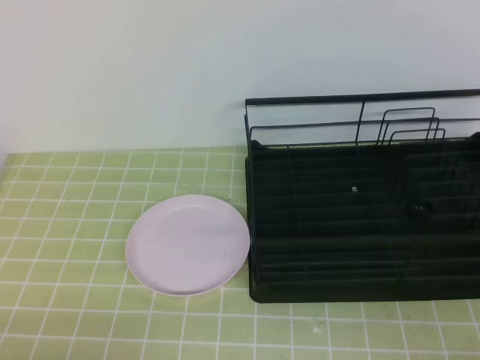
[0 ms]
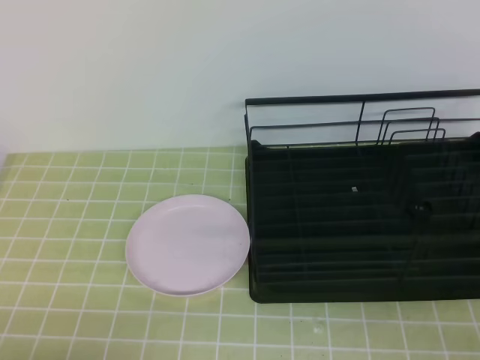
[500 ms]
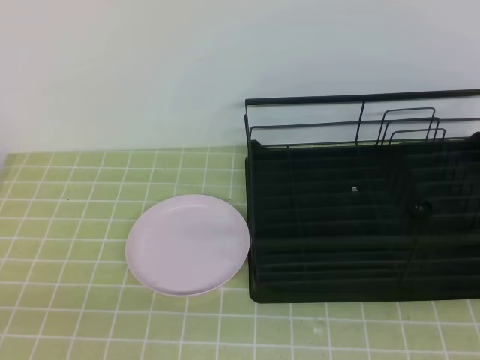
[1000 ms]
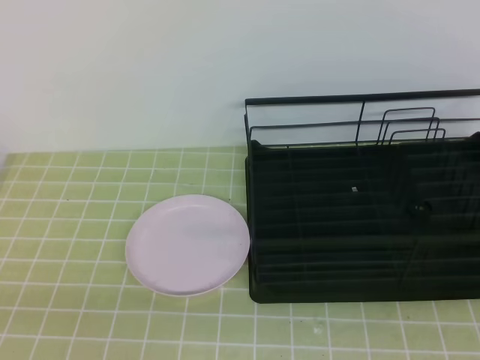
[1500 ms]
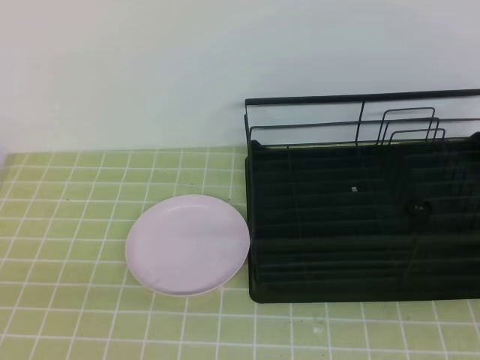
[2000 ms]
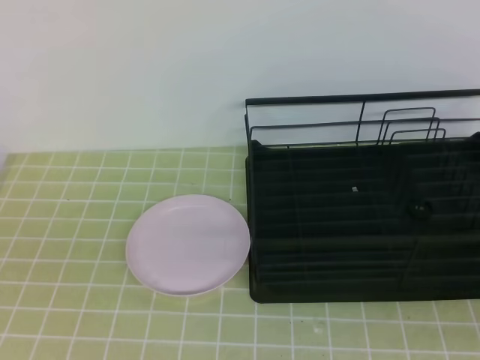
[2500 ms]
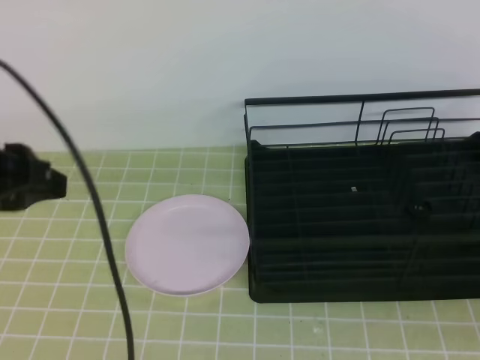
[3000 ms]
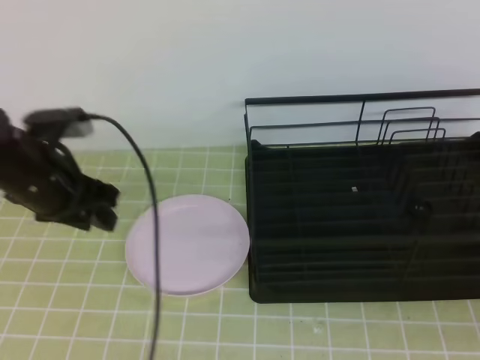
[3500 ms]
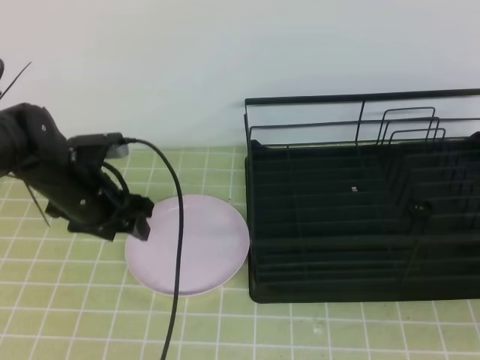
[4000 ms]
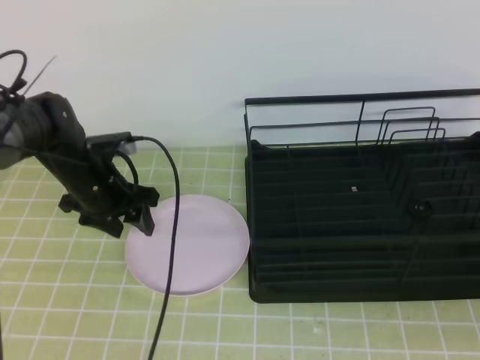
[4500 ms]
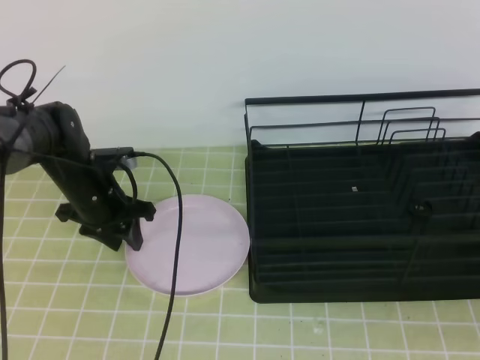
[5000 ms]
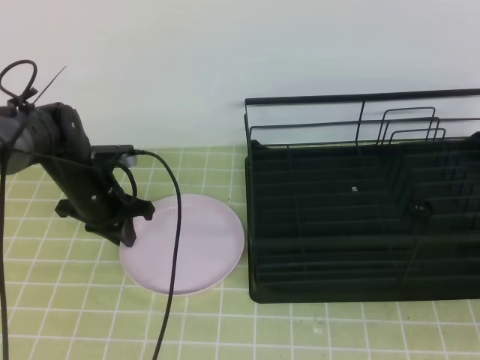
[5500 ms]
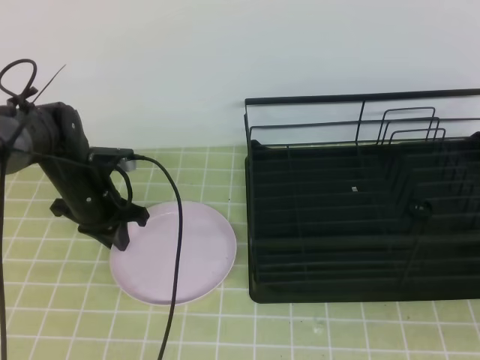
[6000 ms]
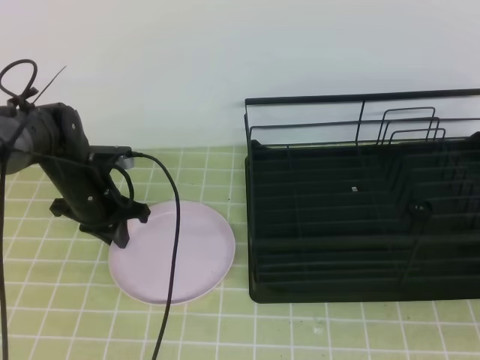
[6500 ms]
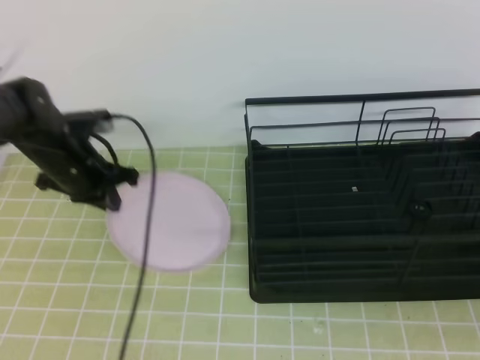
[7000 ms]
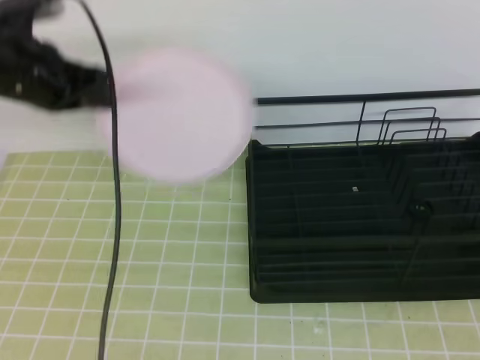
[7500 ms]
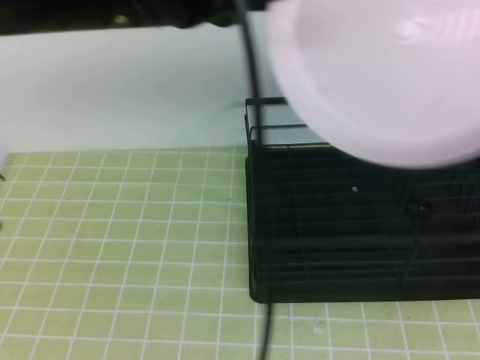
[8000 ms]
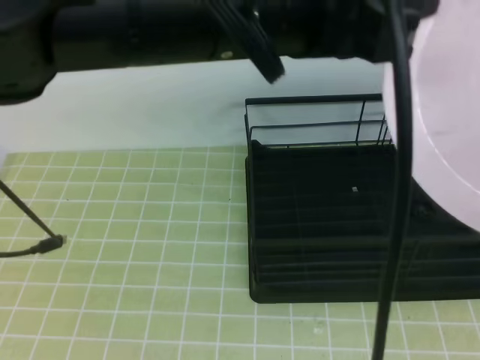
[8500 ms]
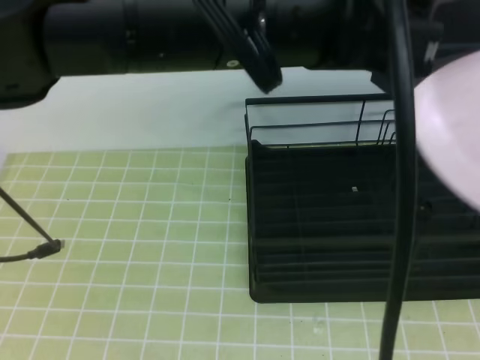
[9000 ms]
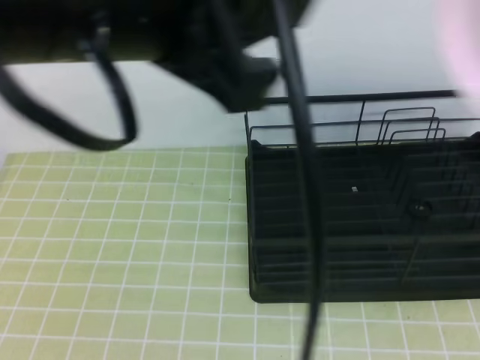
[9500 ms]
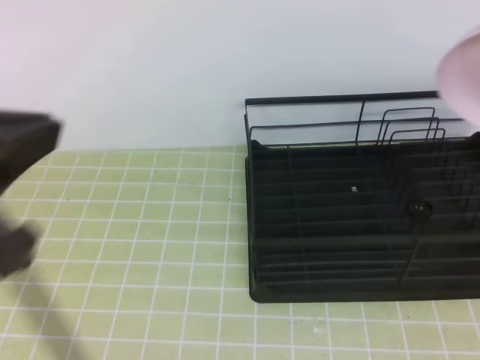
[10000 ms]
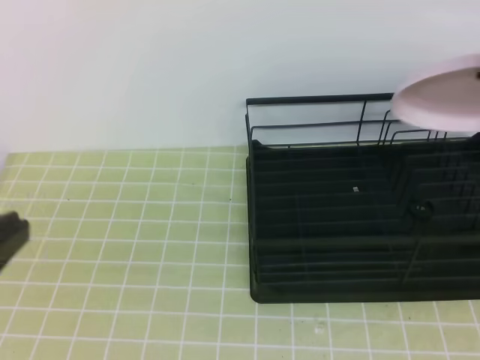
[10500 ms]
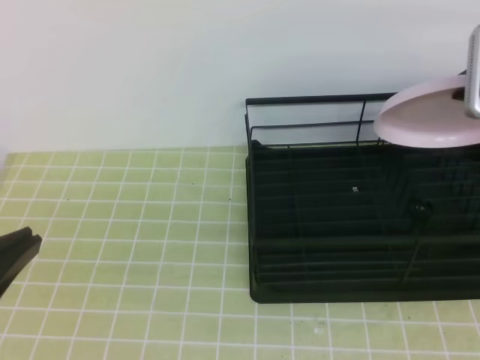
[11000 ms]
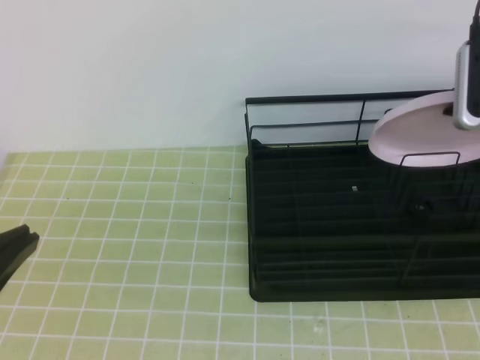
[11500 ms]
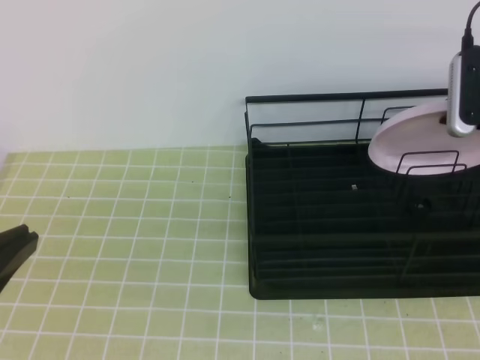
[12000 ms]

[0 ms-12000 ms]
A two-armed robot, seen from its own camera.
2000 ms to 4000 ms: The left gripper heads forward, covering some 35 cm, and opens its fingers.
4000 ms to 6000 ms: The left gripper shifts by roughly 5 cm, and closes its fingers.
6000 ms to 8000 ms: The left gripper shifts approximately 35 cm upward and backward. The right gripper goes some 15 cm upward, and opens up.
8000 ms to 10000 ms: The right gripper is displaced forward by roughly 15 cm. The left gripper heads backward and to the left, covering approximately 15 cm, and opens and closes again.
10000 ms to 12000 ms: The right gripper goes roughly 25 cm forward and downward; the left gripper shifts roughly 10 cm downward.

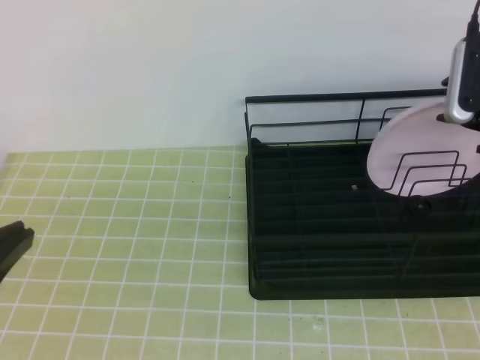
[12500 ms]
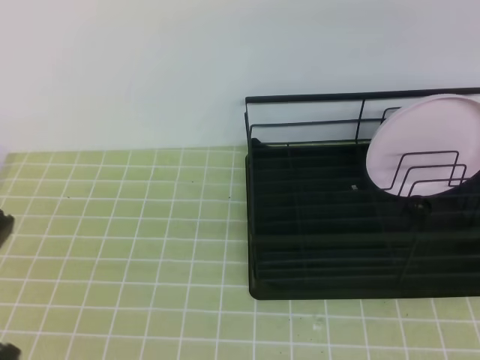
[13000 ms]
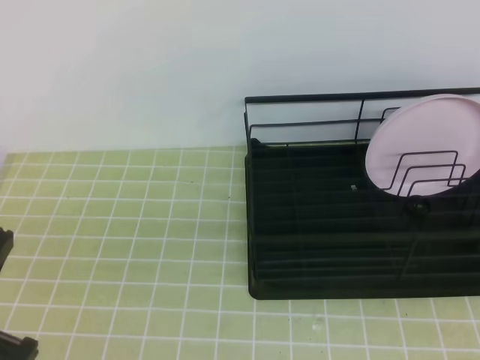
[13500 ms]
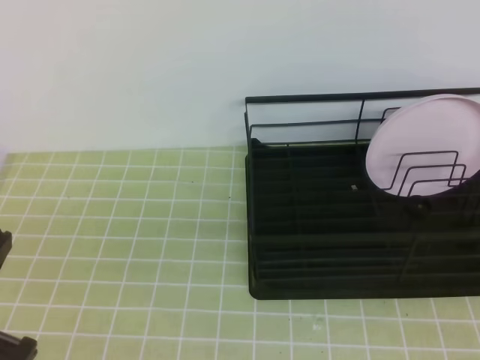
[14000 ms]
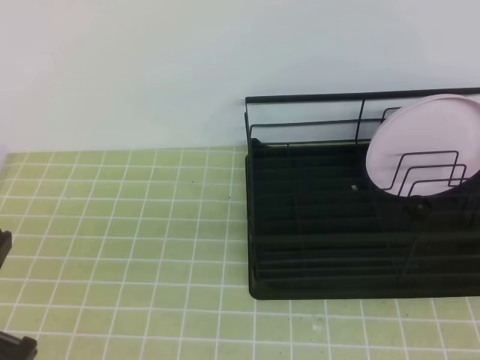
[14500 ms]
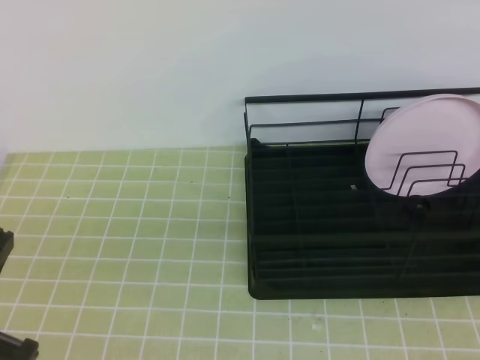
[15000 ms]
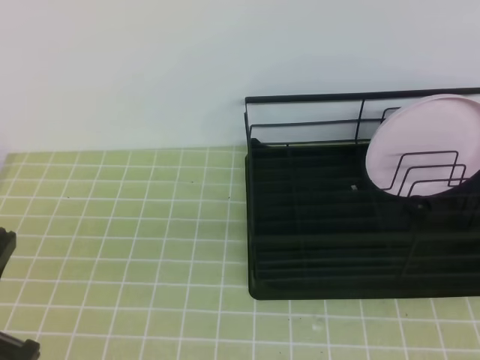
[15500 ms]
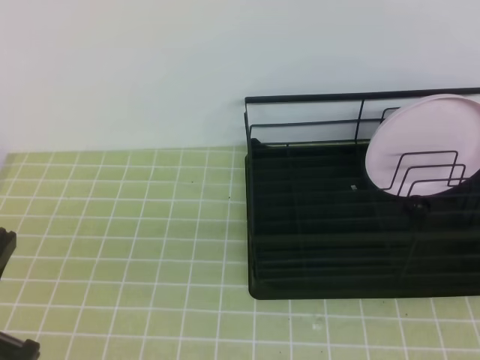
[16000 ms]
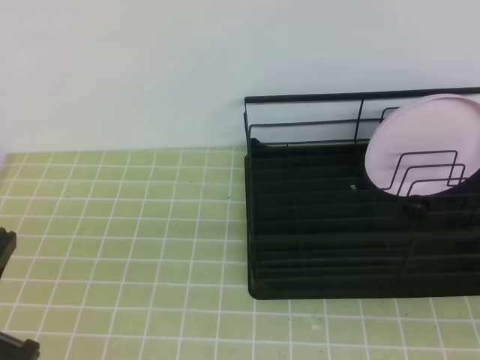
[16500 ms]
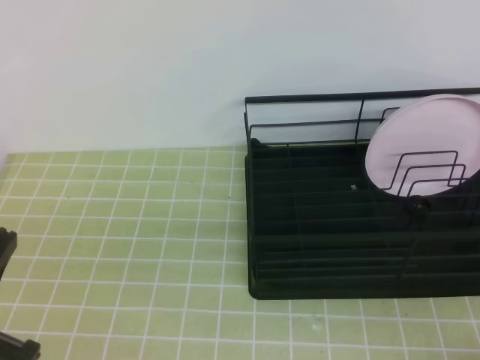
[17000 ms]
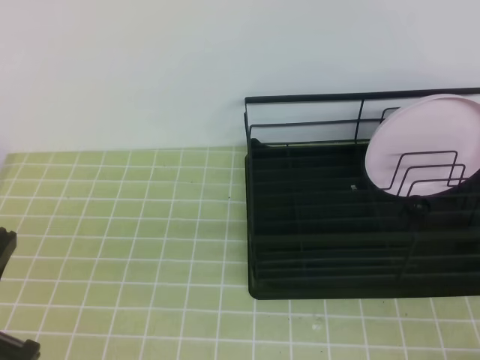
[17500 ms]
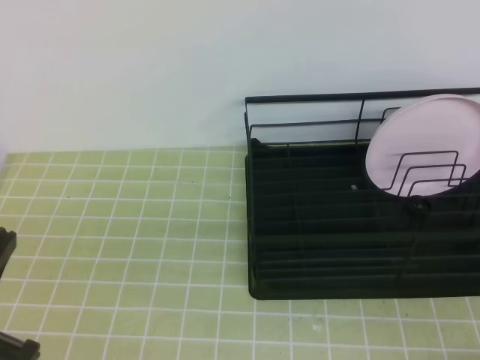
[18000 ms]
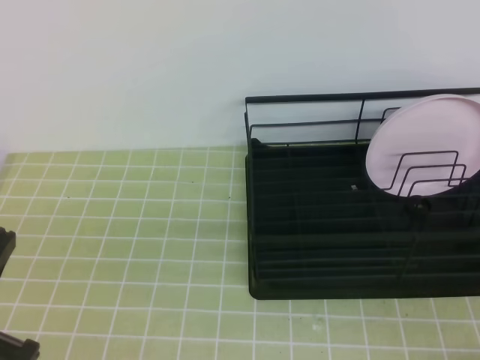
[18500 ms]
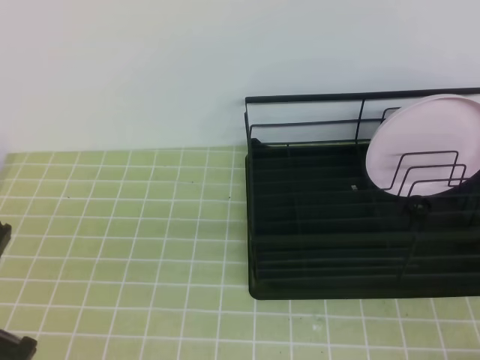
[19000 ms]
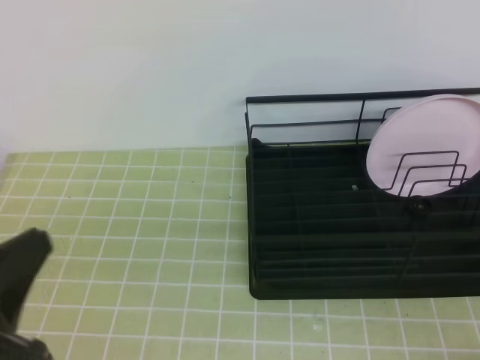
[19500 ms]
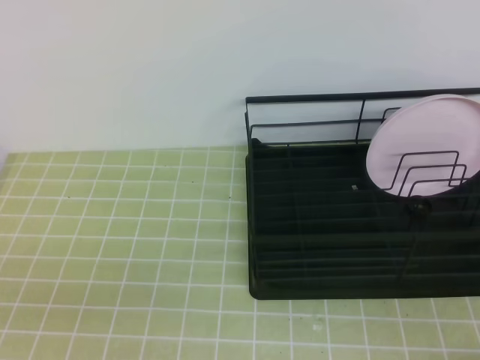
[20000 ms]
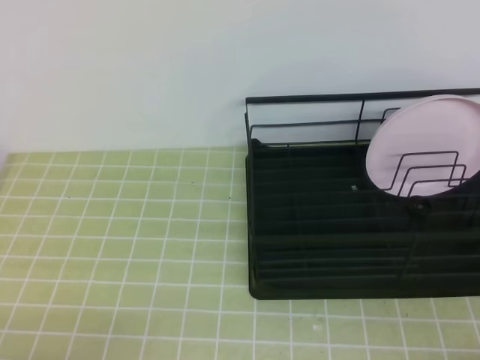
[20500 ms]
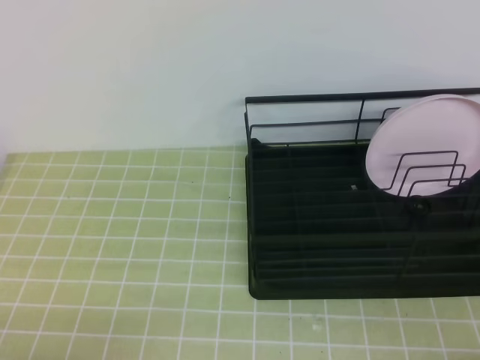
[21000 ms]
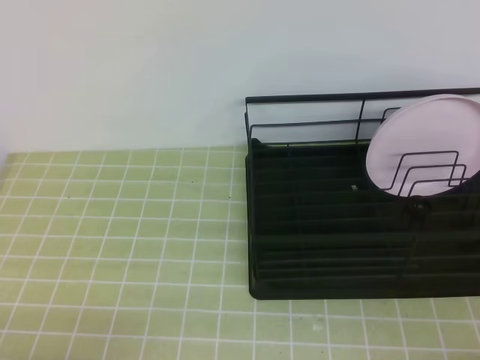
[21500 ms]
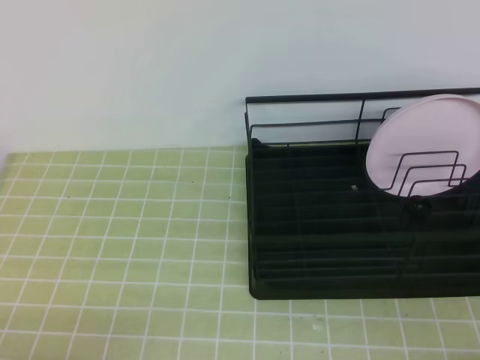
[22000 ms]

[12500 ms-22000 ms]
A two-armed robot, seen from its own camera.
12500 ms to 14500 ms: The left gripper is displaced downward by some 5 cm. The right gripper shifts about 30 cm backward, and closes up.
18000 ms to 20000 ms: The left gripper shifts by approximately 5 cm.
